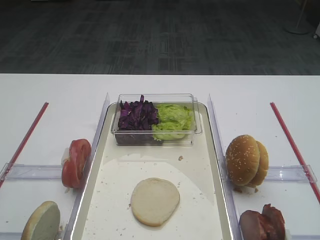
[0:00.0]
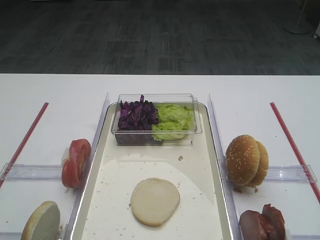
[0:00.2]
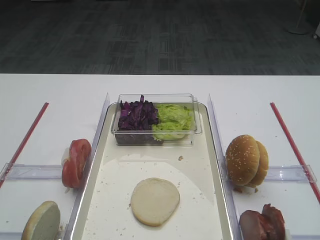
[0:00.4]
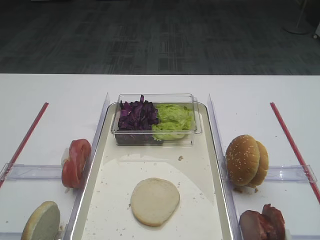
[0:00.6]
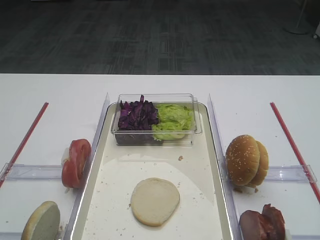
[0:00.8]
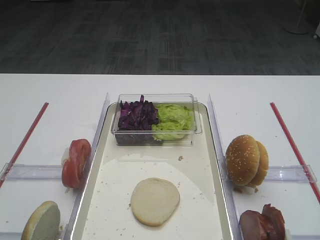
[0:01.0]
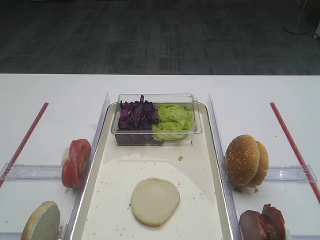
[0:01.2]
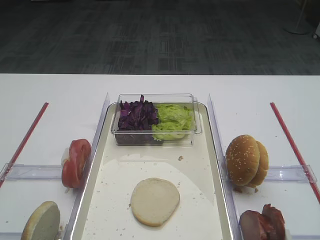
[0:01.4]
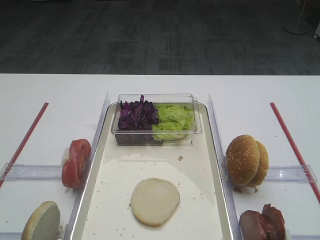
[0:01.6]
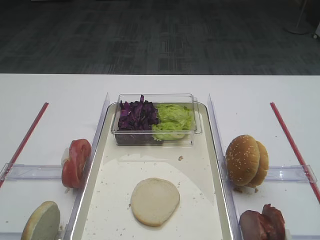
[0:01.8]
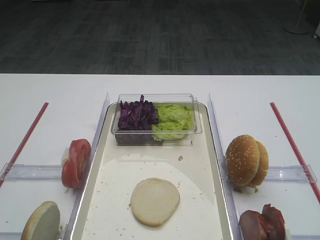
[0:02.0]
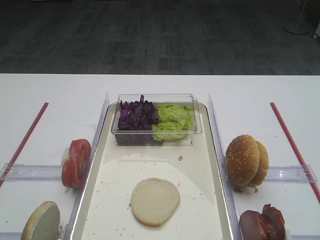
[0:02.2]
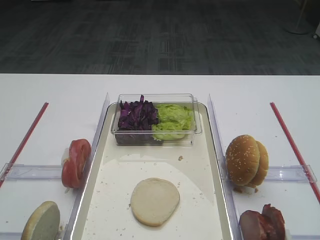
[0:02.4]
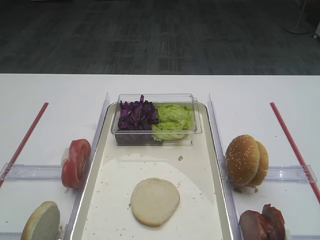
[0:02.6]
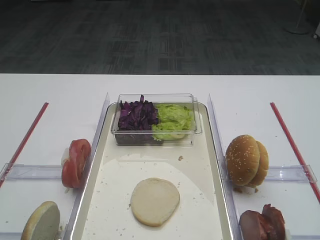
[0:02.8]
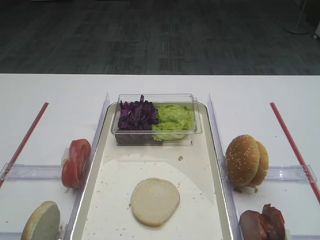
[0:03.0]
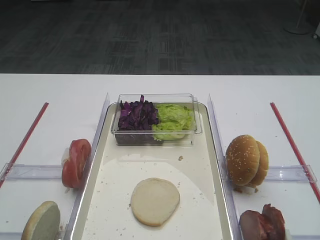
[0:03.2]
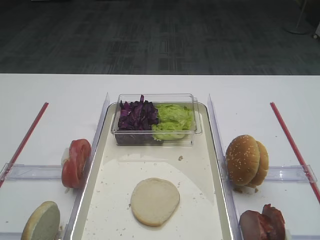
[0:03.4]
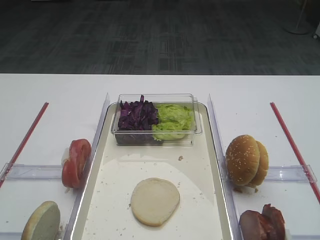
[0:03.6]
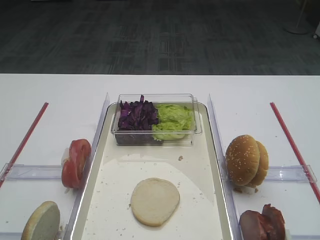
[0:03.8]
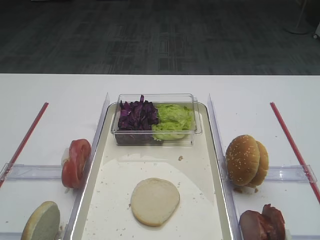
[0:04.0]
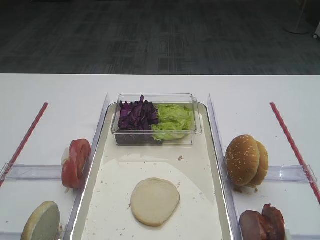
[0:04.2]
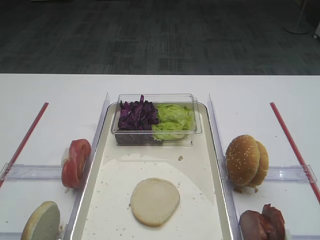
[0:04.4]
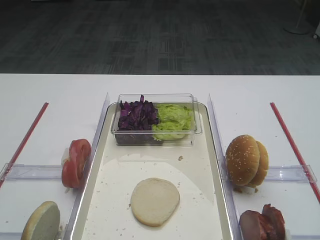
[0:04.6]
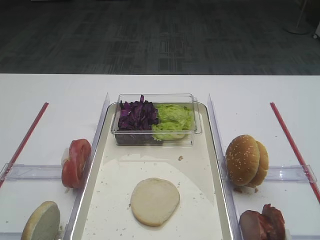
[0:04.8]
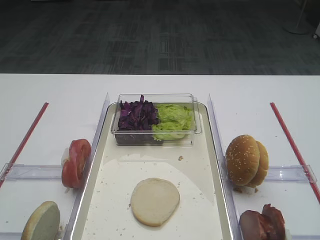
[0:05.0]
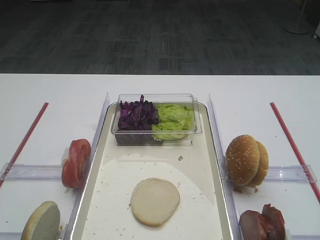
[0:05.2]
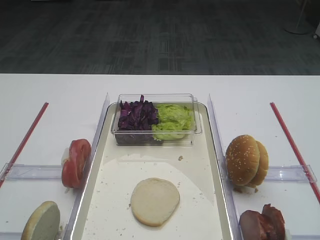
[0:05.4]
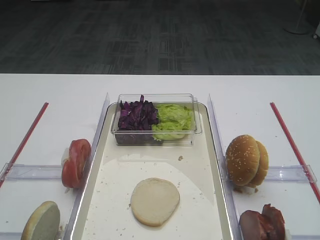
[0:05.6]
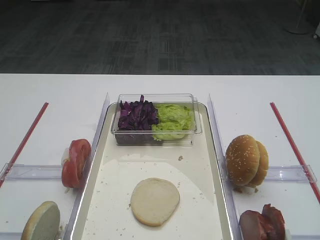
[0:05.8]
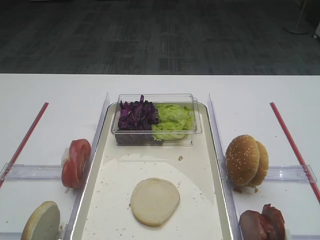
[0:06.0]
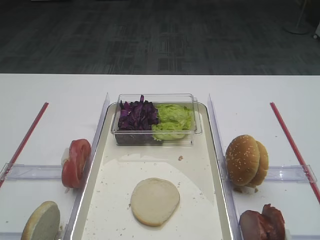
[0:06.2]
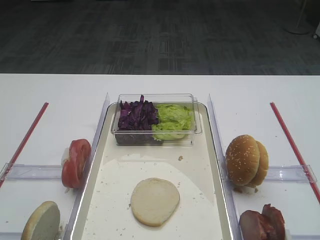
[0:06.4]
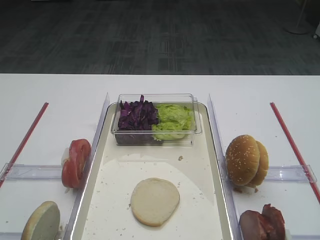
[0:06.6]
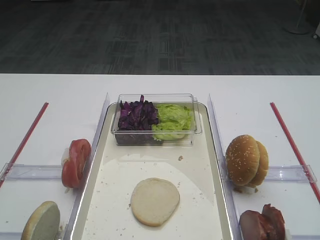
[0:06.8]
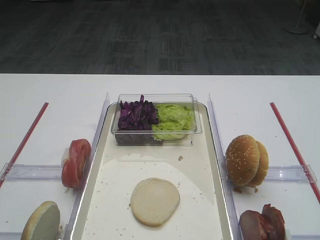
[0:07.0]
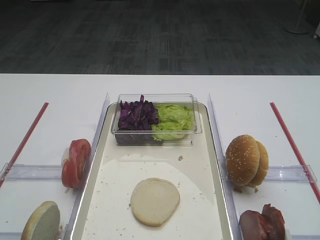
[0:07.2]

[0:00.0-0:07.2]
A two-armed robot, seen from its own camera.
0:01.4 to 0:02.8: The two grippers keep their place.
0:04.4 to 0:07.2: The two grippers keep their place.

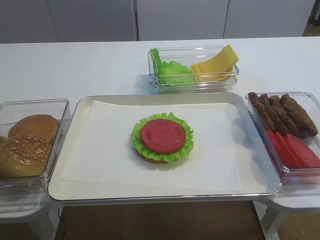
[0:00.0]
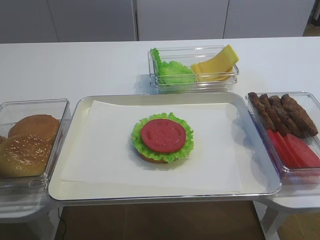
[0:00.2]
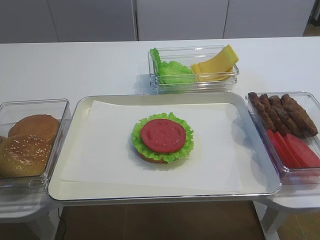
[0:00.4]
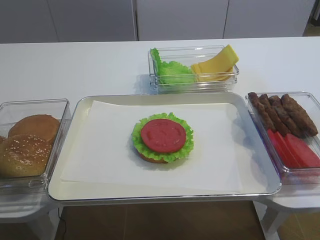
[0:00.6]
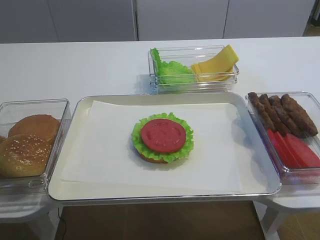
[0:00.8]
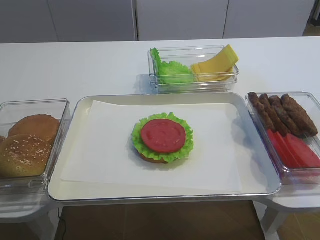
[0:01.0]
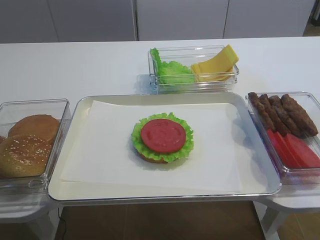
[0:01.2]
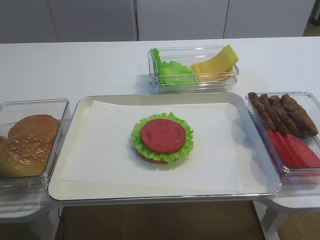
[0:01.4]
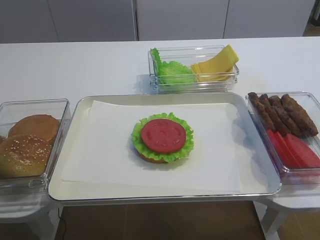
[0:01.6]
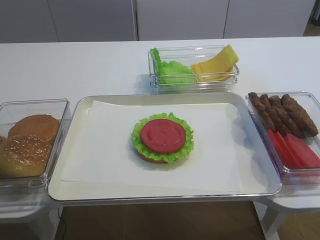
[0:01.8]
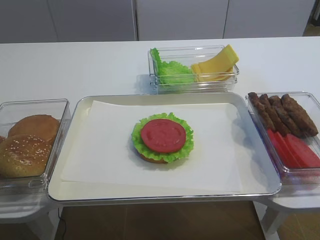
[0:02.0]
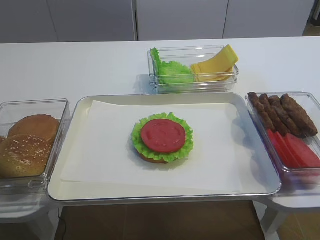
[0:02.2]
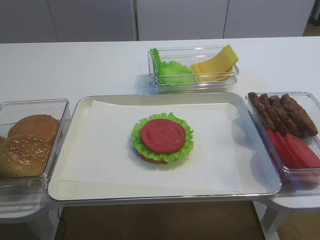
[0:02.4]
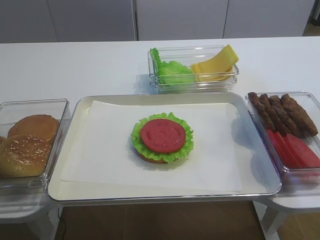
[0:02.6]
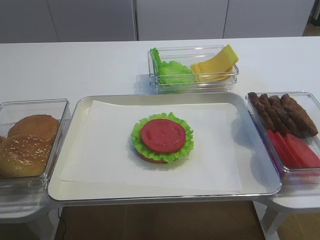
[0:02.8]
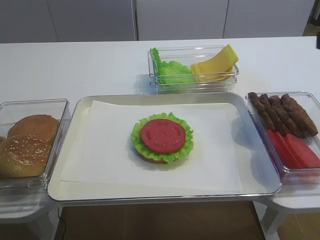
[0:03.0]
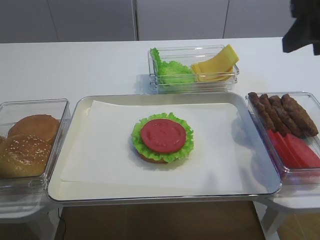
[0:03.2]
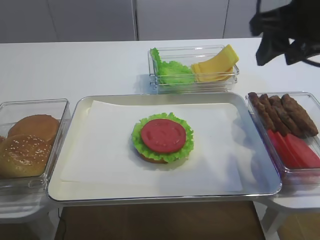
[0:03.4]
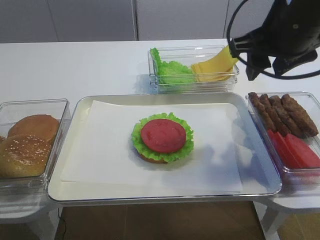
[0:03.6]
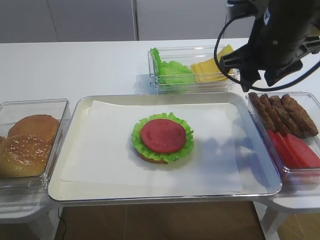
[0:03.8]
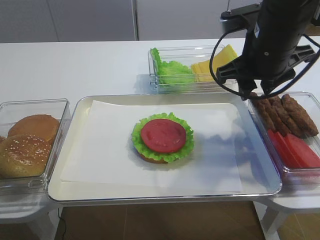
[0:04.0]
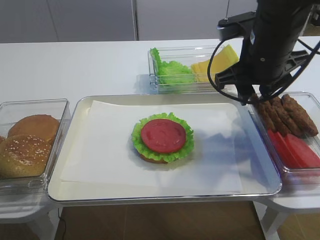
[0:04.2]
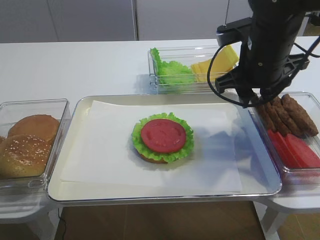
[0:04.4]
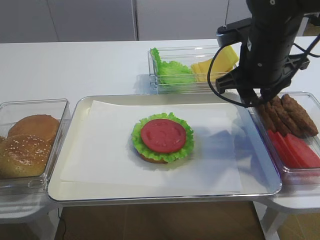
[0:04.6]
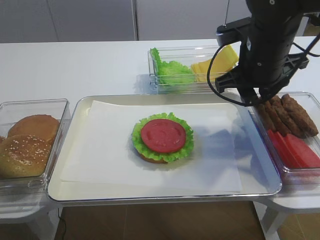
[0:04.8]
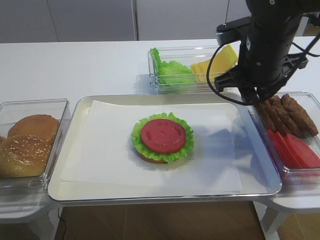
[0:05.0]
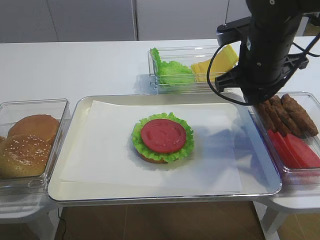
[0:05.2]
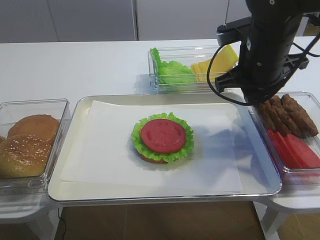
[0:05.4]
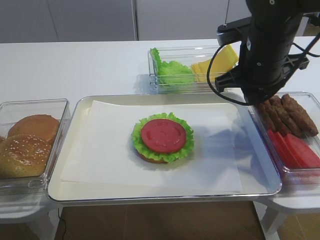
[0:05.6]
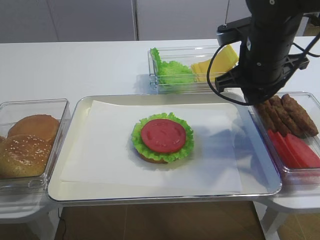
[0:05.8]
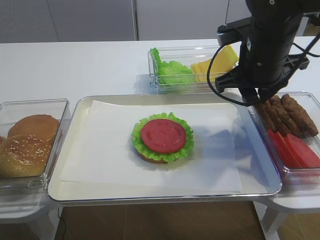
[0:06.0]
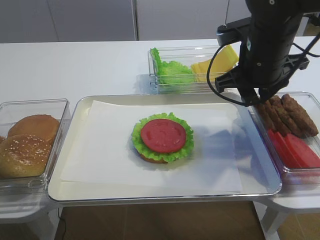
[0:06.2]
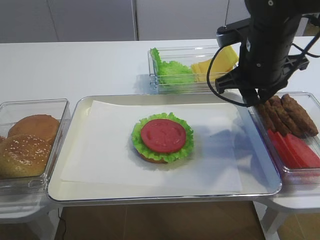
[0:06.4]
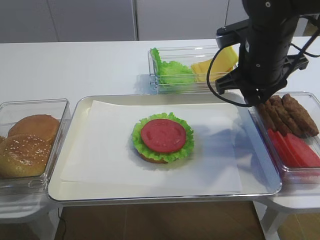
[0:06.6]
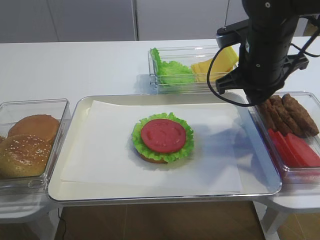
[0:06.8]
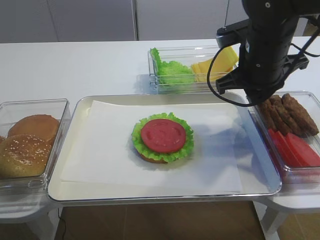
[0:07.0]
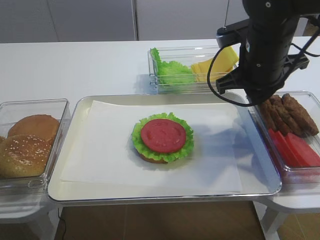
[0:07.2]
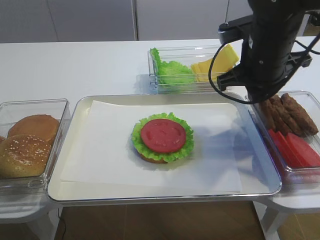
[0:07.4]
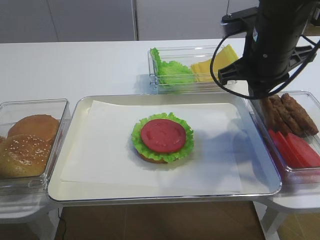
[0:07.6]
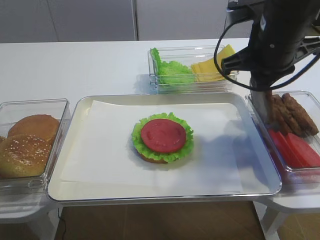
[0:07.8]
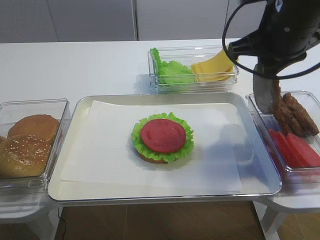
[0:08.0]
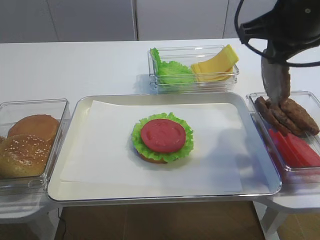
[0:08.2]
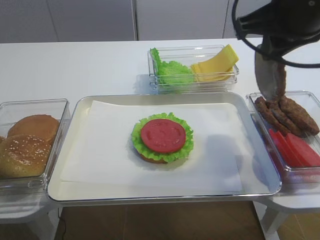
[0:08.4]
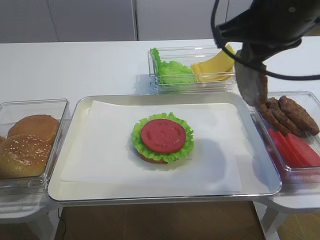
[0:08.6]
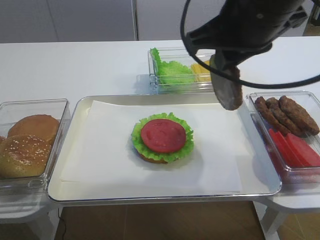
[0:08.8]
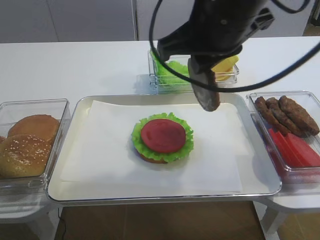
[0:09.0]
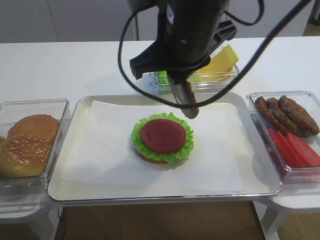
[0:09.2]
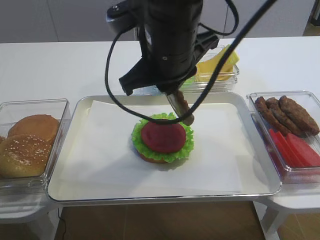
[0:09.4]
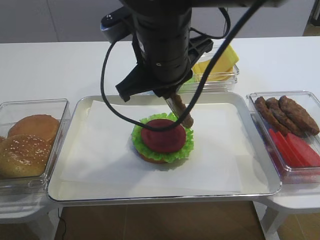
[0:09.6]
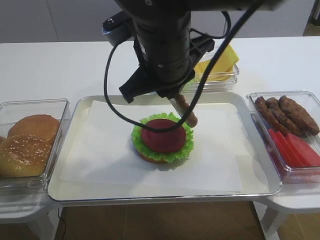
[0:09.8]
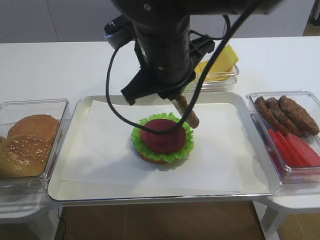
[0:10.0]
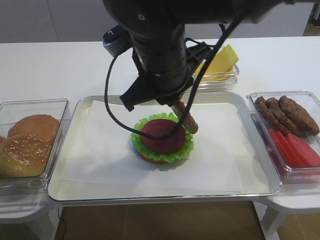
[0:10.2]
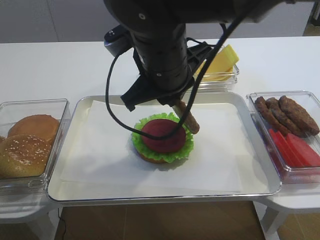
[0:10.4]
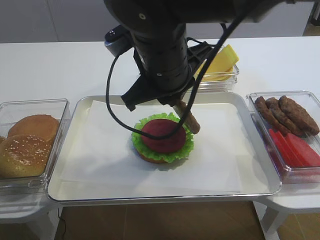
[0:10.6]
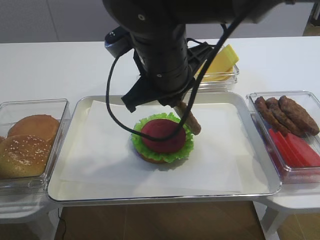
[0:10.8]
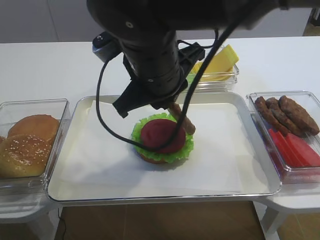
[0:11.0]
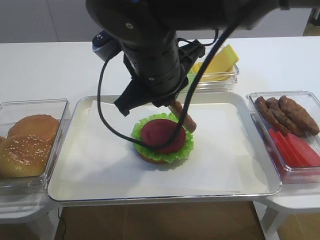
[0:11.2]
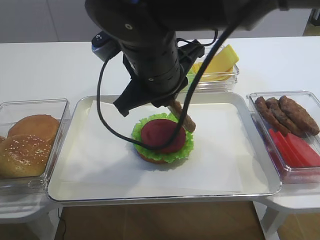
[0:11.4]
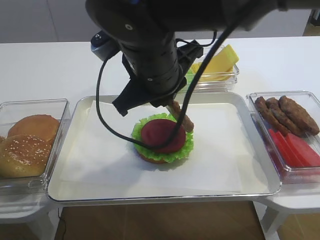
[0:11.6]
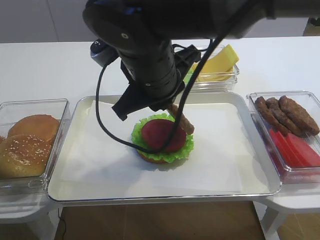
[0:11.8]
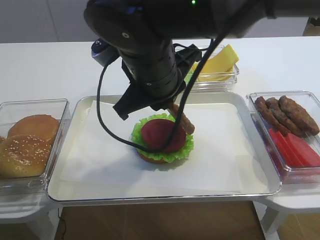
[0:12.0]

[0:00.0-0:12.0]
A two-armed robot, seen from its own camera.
Step, 0:00.0 to 0:07.8: Pick up the cutlet with the right gripper.
0:01.6 to 0:03.0: The right gripper moves forward and upward, approximately 20 cm.
0:03.0 to 0:04.4: The right gripper moves forward, downward and to the left, approximately 20 cm.
0:04.4 to 0:06.0: Both grippers stay put.
0:06.0 to 0:07.6: The grippers stay close to where they were, moving slightly.
0:07.6 to 0:09.0: The right gripper travels to the left, upward and backward by about 15 cm.
0:09.0 to 0:10.4: The right gripper shifts some 10 cm to the left and downward.
0:10.4 to 0:12.0: There are only small adjustments of the grippers.

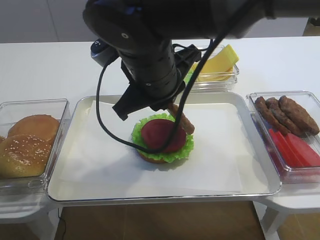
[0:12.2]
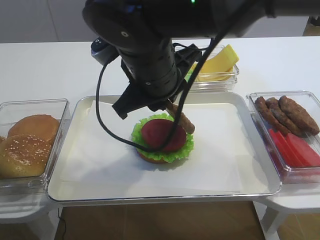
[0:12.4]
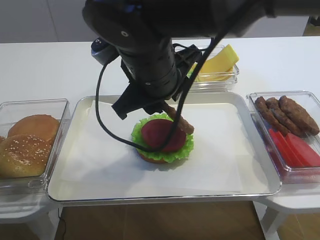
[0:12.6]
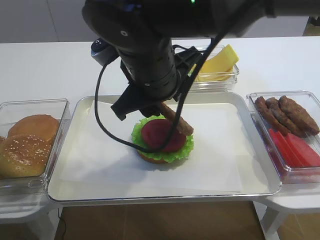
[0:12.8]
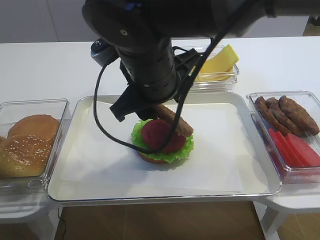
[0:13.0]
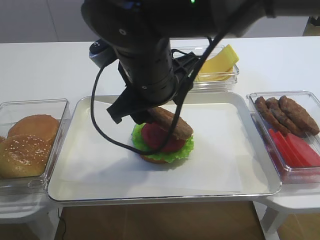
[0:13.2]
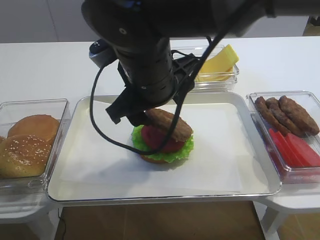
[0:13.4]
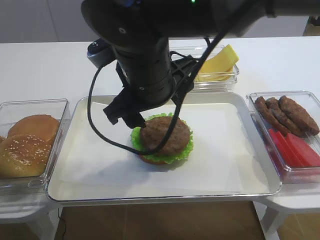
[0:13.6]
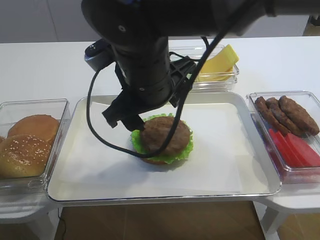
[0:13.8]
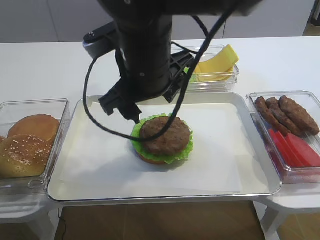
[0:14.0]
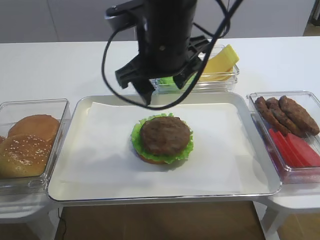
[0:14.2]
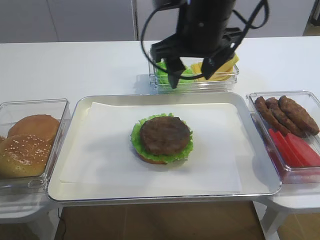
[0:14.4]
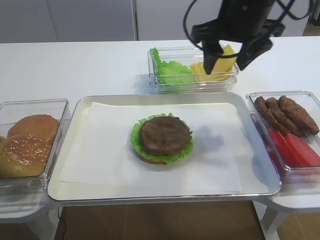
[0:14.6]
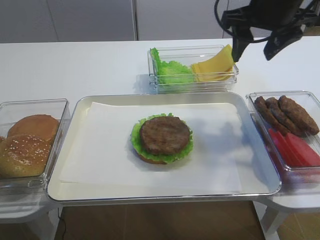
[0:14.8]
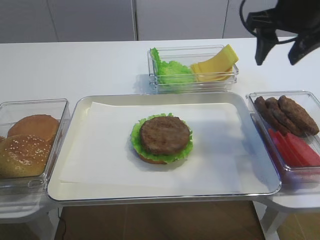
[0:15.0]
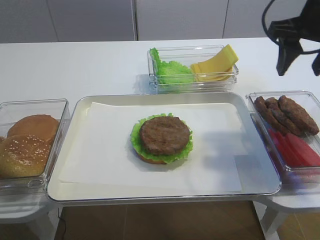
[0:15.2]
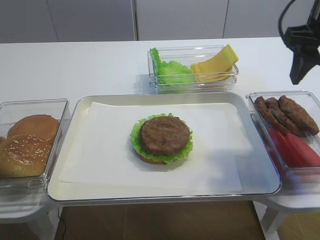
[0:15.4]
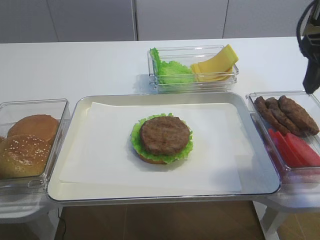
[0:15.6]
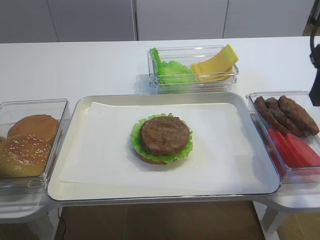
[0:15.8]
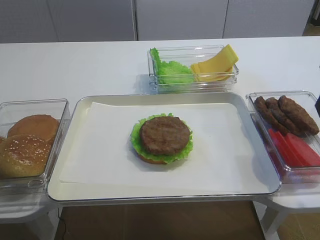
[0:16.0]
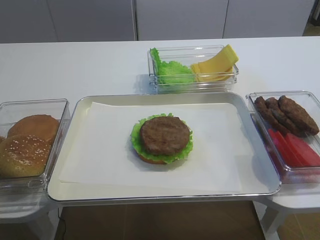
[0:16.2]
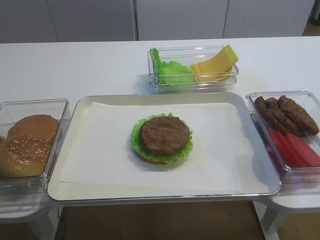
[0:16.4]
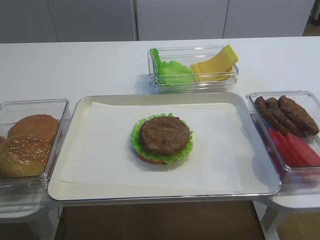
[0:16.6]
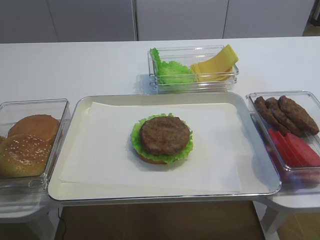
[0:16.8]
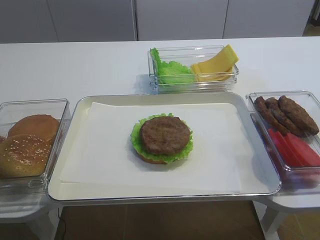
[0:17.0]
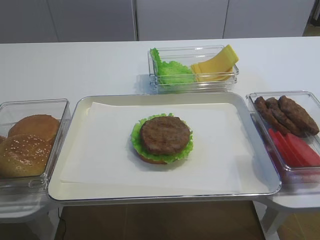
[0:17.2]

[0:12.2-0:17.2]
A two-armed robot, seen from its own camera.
0:12.2 to 0:13.8: The right gripper opens.
0:13.8 to 0:15.6: The right gripper heads to the right, covering about 25 cm.
0:15.6 to 0:17.2: The right gripper moves backward, approximately 25 cm.
